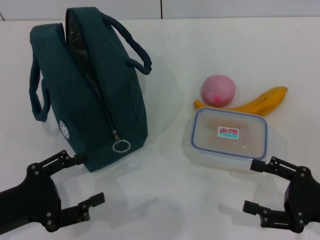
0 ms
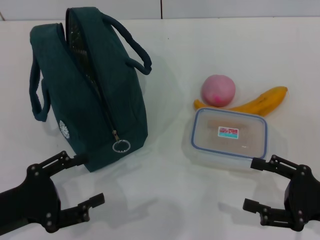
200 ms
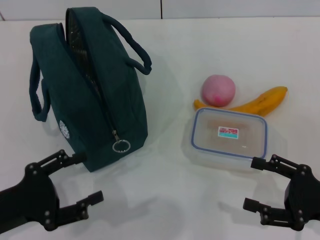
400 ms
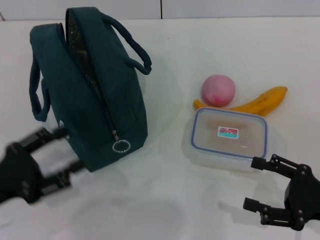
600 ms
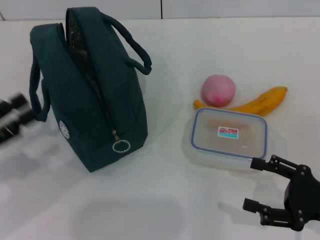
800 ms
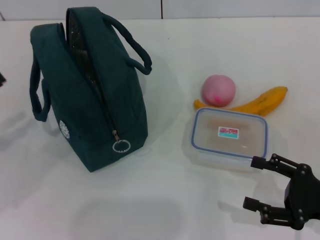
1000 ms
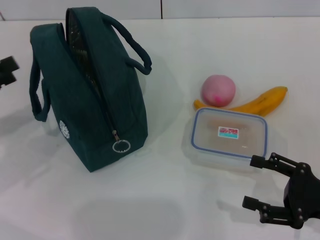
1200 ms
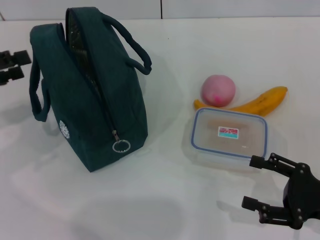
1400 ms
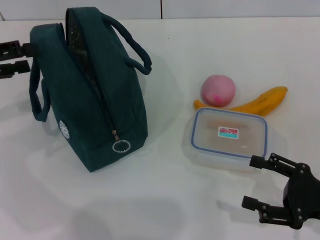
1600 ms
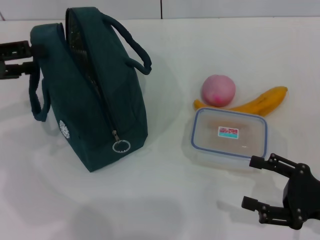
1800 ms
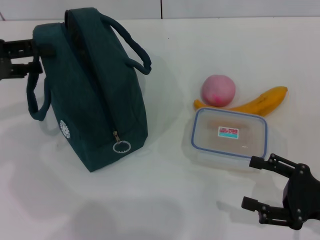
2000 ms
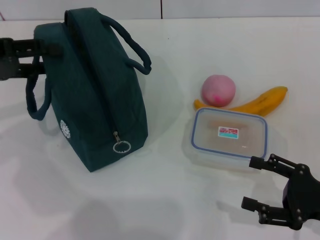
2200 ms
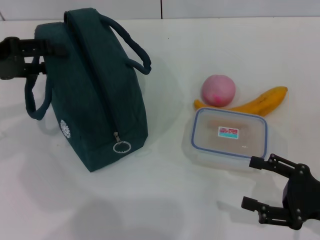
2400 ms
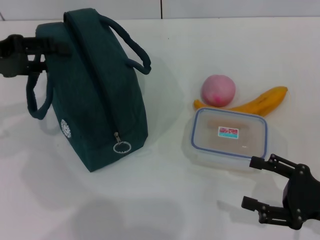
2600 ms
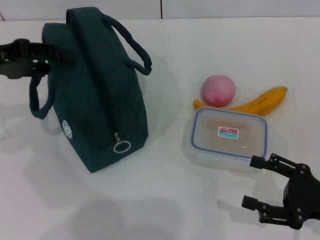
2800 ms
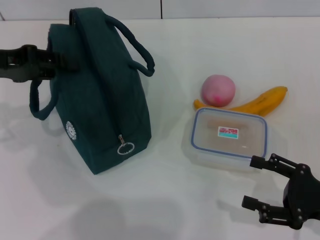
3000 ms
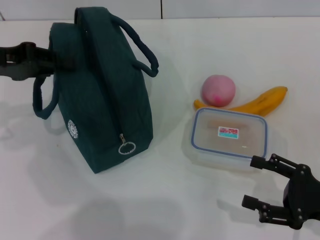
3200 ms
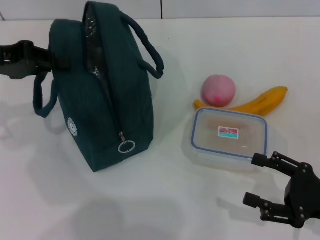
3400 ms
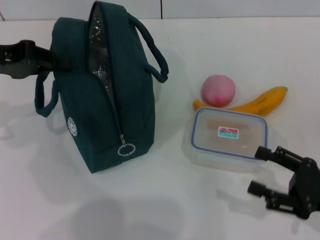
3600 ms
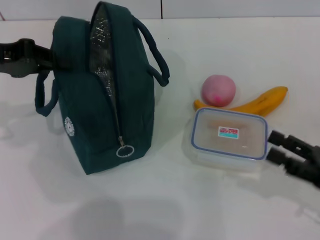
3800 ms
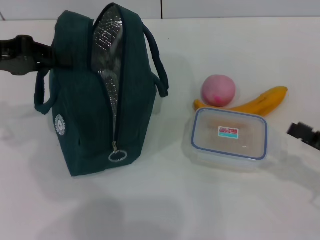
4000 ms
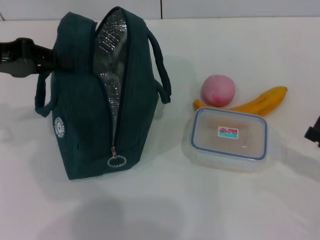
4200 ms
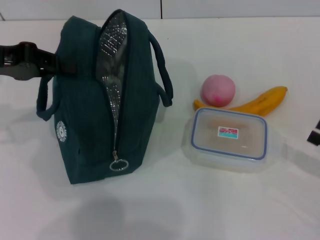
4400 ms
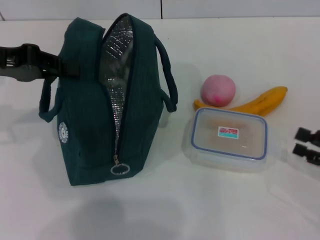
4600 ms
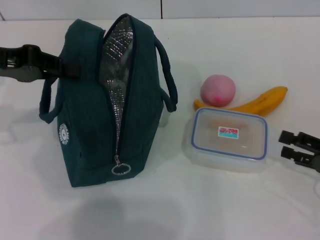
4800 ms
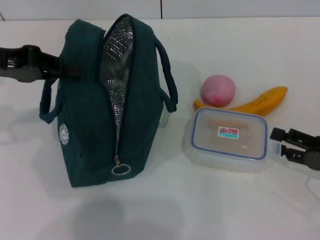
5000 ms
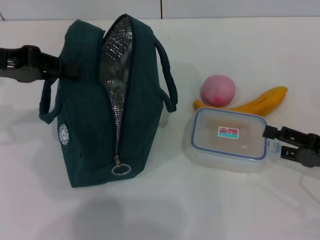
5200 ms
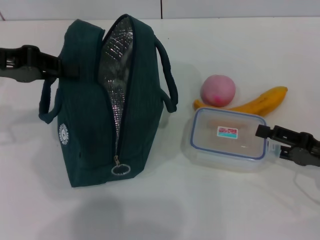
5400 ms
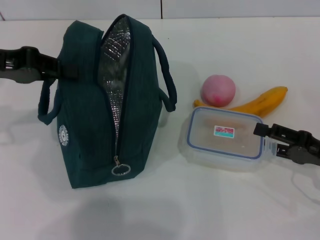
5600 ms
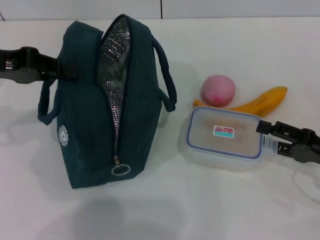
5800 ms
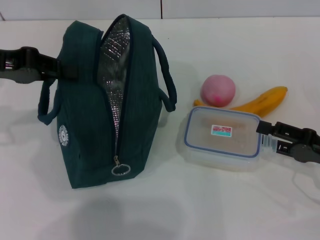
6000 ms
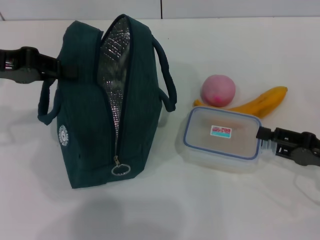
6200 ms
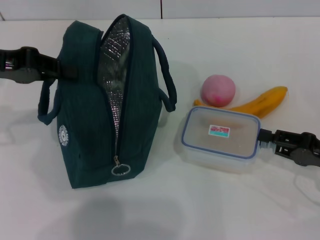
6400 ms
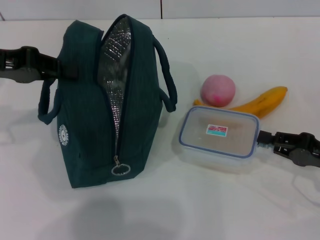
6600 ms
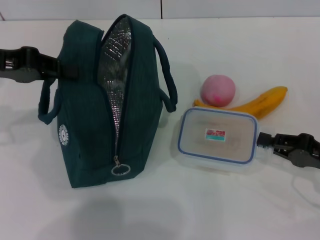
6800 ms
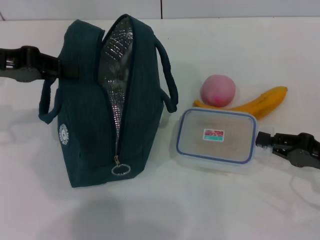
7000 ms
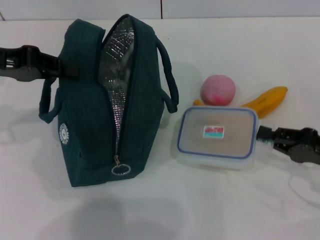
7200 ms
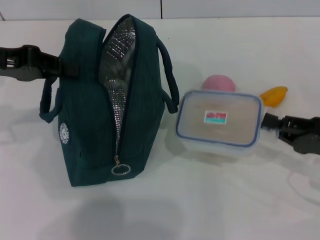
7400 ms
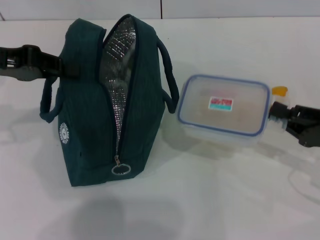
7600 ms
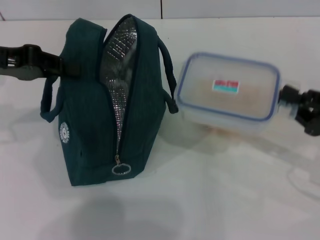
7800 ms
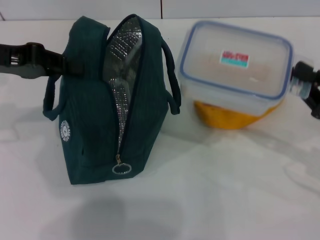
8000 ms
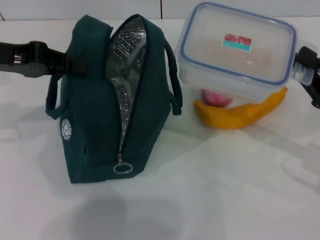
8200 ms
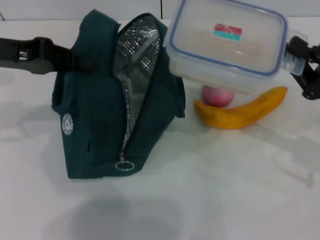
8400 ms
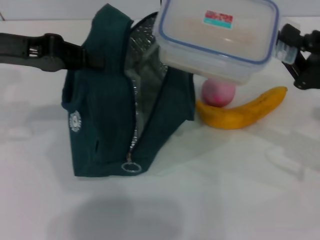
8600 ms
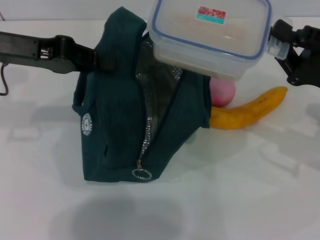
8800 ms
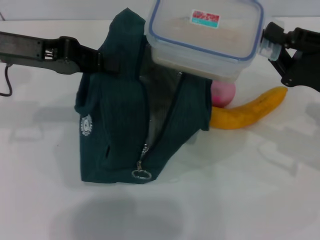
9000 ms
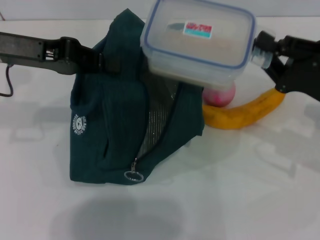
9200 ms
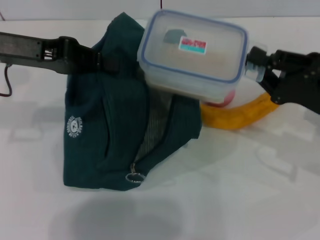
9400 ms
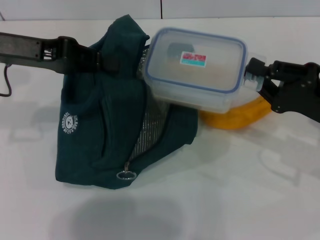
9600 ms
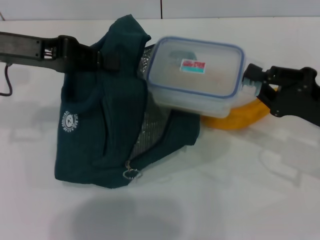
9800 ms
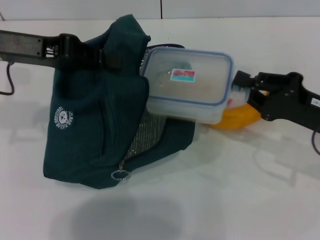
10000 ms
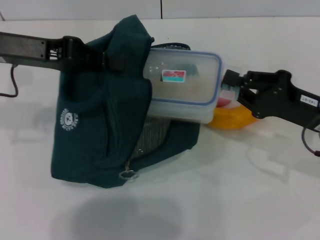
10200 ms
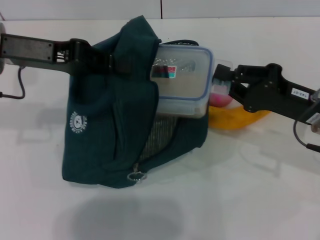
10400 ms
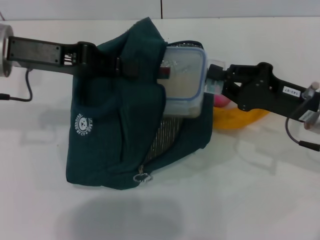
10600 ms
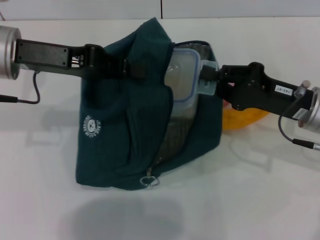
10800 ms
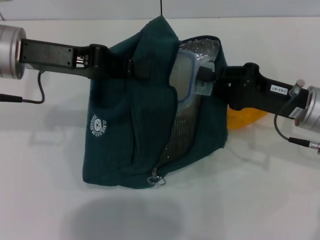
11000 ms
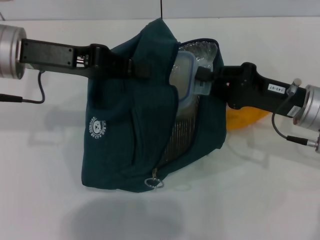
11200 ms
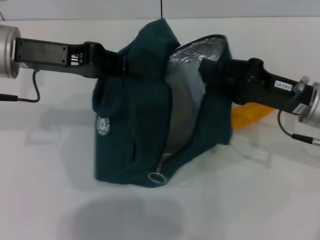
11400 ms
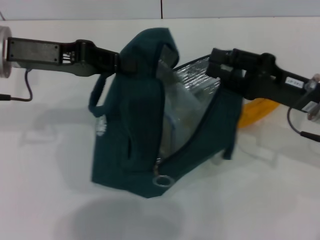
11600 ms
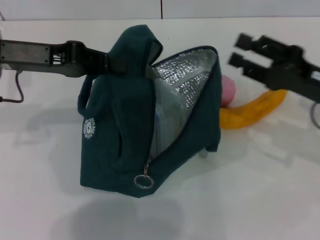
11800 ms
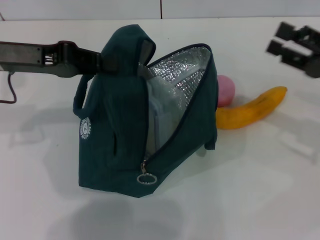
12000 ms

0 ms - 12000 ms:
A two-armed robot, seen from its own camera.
Step, 0 ms - 3400 ms: Hold the lunch bag with your left hand.
Step, 3600 ms - 6800 ms: Pick up the lunch box with your right hand.
Step, 7000 ms - 11600 ms: Place the lunch box into the lunch bag with your right hand.
0 ms - 1600 ms: The left gripper shifts some 20 cm forward, upward and to the left.
1600 ms - 3000 ms: The left gripper moves about 5 cm.
3000 ms - 4400 ms: The right gripper shifts about 5 cm to the right; the left gripper closes up.
4400 ms - 6000 ms: The right gripper shifts roughly 5 cm to the left.
6000 ms - 7600 ms: The right gripper closes its fingers.
7600 ms - 9000 ms: The right gripper ends up approximately 10 cm from where it was.
10400 ms - 12000 ms: The right gripper is displaced to the right by roughly 5 cm.

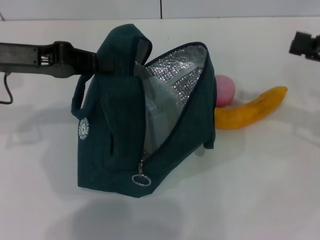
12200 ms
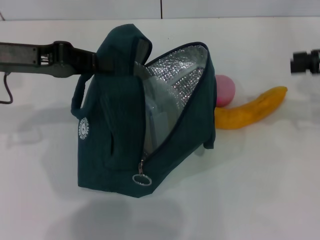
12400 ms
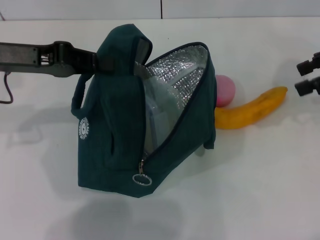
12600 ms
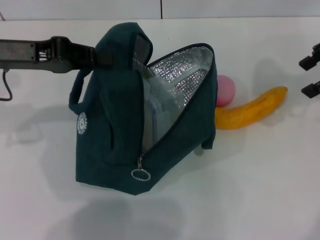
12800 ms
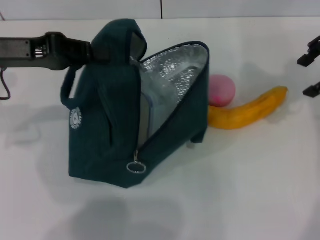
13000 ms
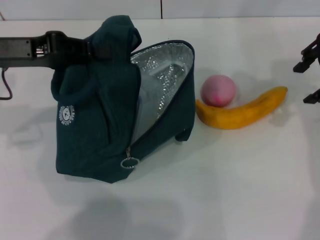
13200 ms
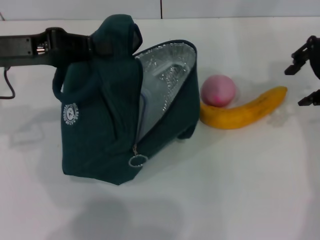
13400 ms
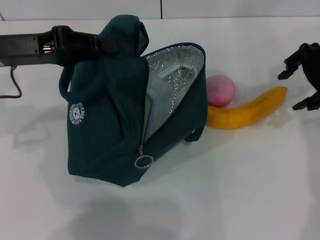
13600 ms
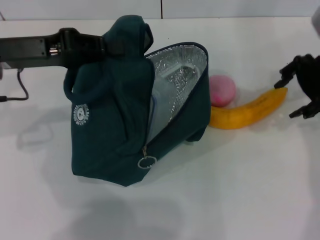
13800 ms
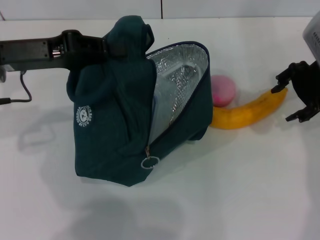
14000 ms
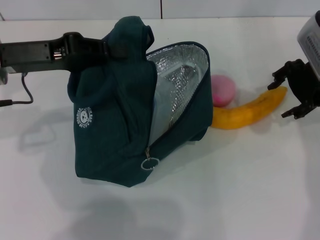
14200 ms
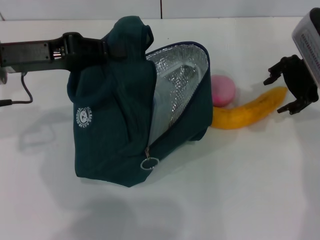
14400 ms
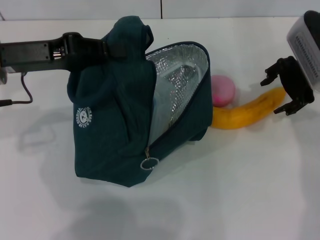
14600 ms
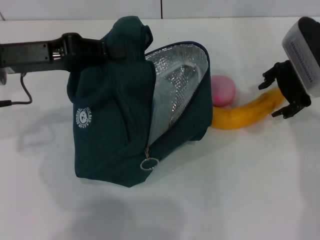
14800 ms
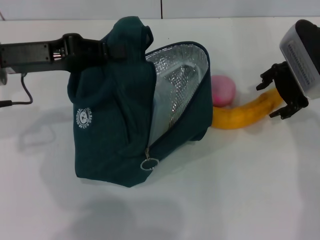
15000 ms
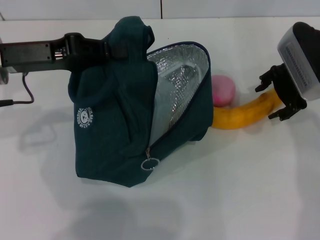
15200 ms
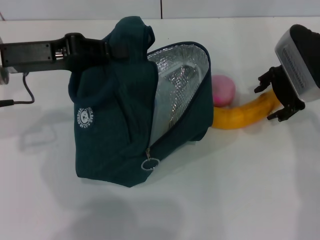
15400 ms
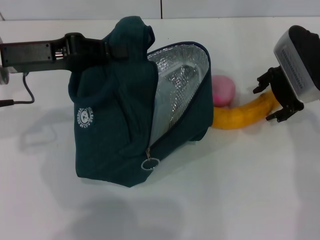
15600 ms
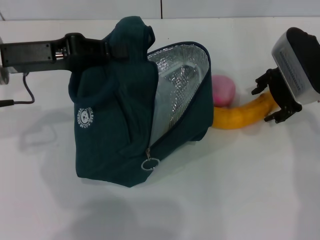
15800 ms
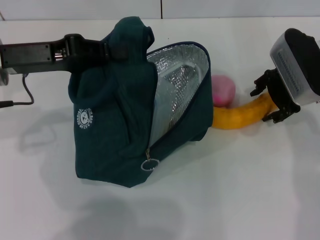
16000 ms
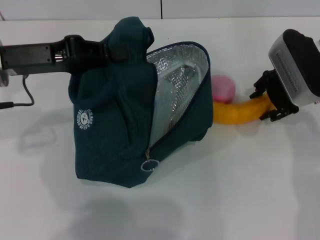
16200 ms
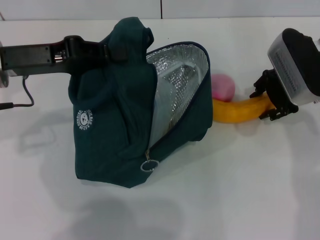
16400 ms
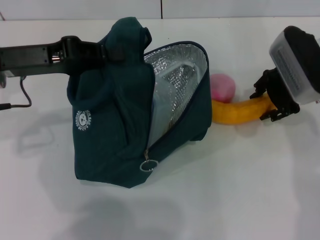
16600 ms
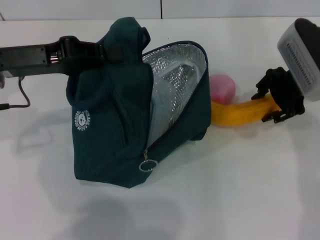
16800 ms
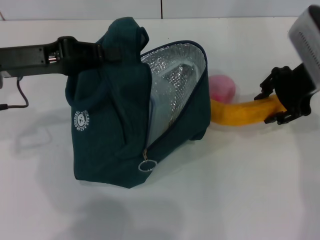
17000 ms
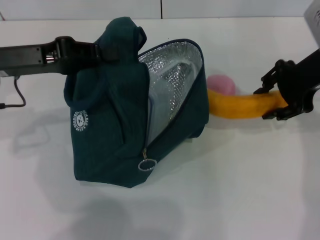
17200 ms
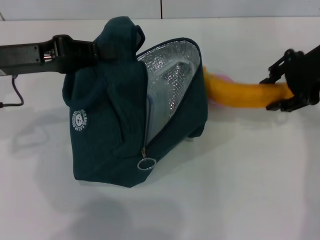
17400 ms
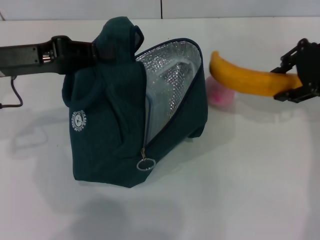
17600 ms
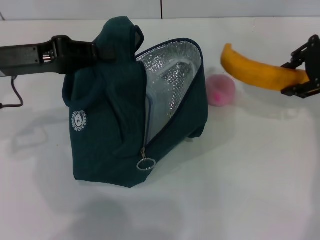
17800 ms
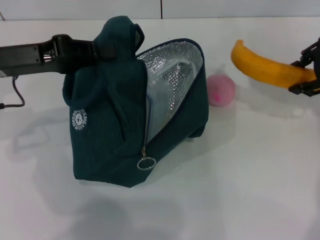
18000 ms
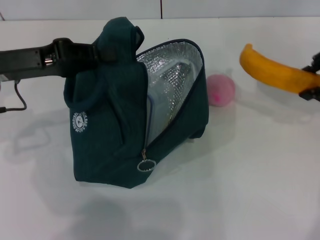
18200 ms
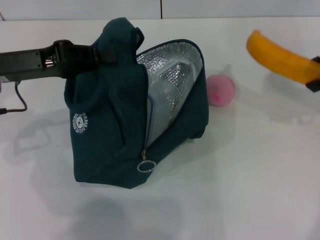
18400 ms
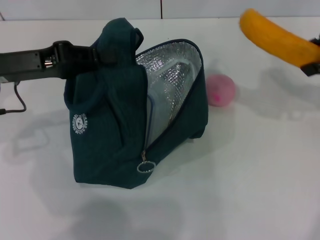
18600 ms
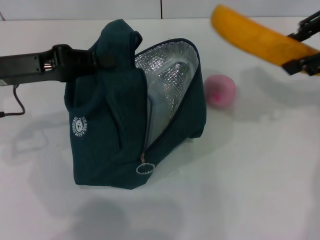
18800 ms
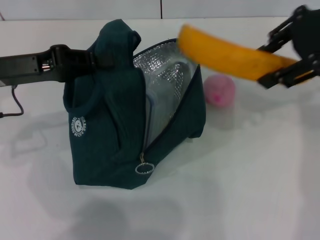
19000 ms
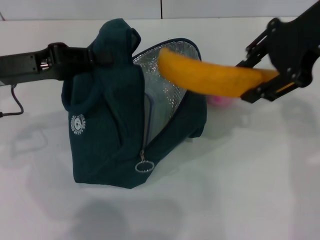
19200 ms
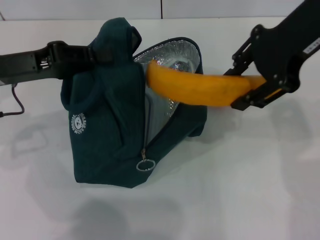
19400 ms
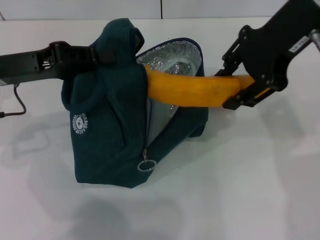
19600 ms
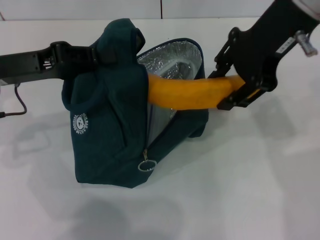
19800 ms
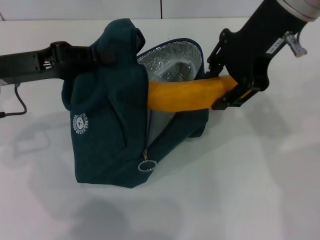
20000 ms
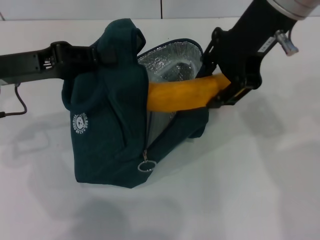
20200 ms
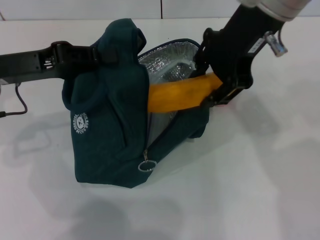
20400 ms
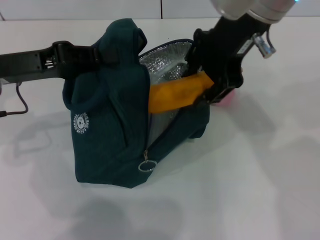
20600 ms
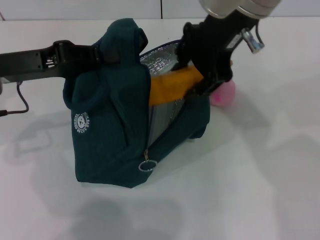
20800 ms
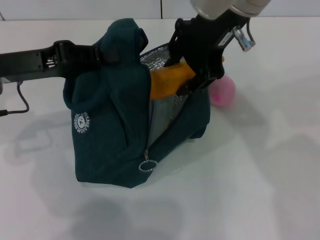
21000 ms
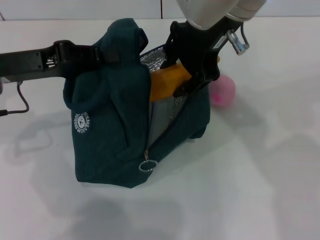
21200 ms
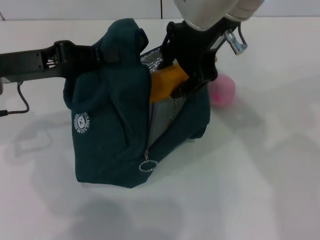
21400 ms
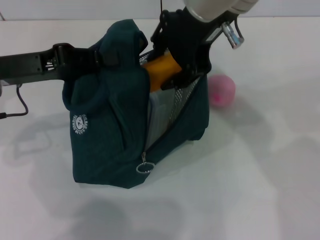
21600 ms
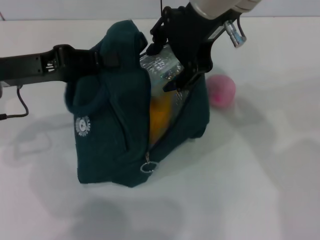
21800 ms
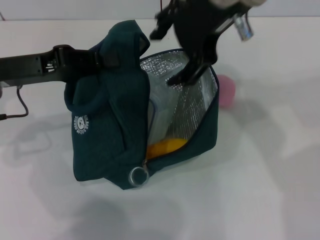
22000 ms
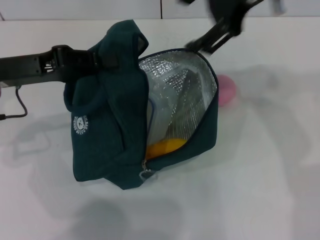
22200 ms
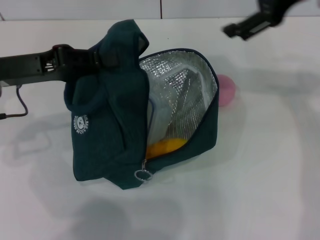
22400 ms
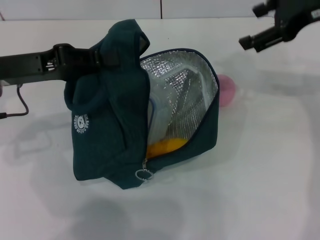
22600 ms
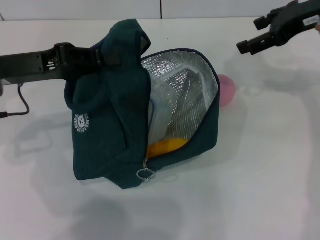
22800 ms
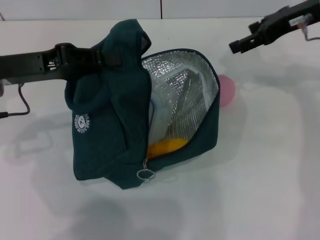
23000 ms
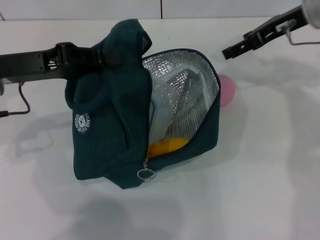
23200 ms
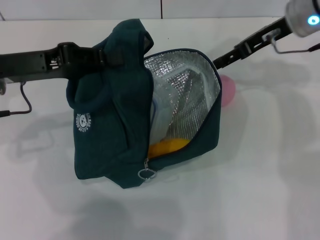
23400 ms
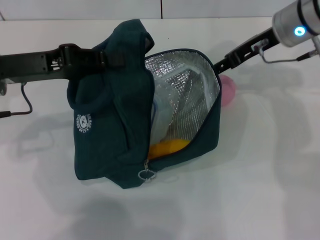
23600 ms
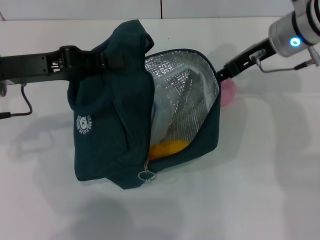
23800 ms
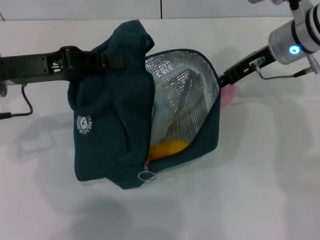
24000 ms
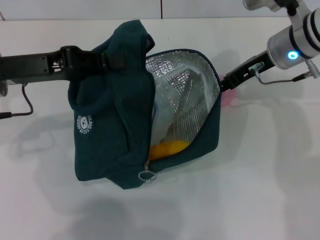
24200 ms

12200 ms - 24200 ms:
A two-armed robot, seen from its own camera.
Step, 12200 ms - 16400 ms: Take the banana with your right hand.
Step, 16800 ms - 22000 ms: Put the banana into the lunch bag with your right hand.
12200 ms - 13800 ms: The right gripper is displaced to the left and forward by approximately 10 cm.
13800 ms - 15200 ms: The right gripper goes some 5 cm downward.
15200 ms - 16600 ms: Both grippers stay about where they are.
16600 ms - 18200 ms: The right gripper travels to the right and upward by approximately 10 cm.
18200 ms - 19800 ms: The right gripper heads to the left and upward, covering about 15 cm.
19800 ms - 21200 ms: The right gripper heads to the left, covering roughly 10 cm.
21200 ms - 22600 ms: The right gripper travels to the right by about 20 cm, and opens its fingers.
22600 ms - 24200 ms: The right gripper moves downward and to the left, about 15 cm.
